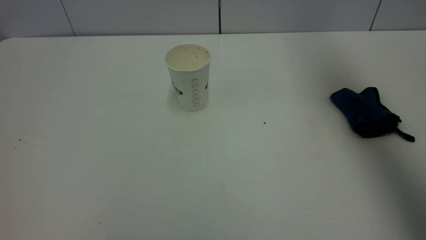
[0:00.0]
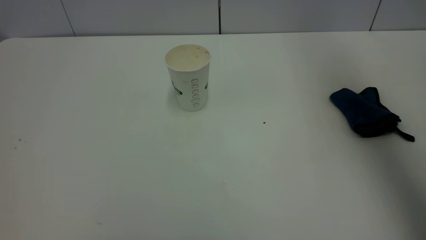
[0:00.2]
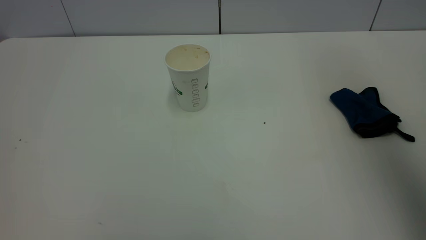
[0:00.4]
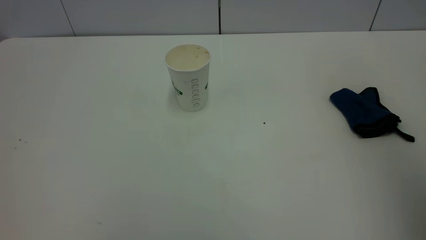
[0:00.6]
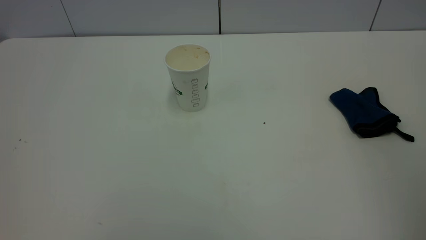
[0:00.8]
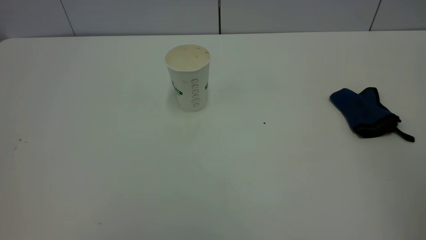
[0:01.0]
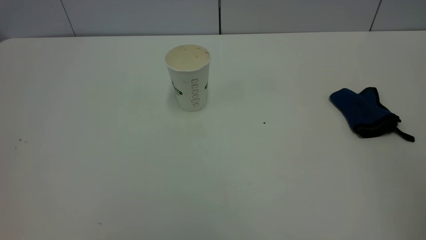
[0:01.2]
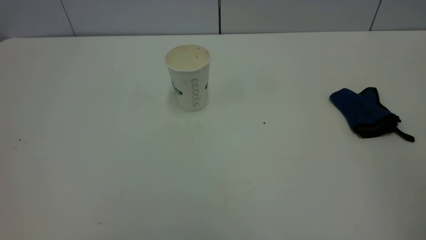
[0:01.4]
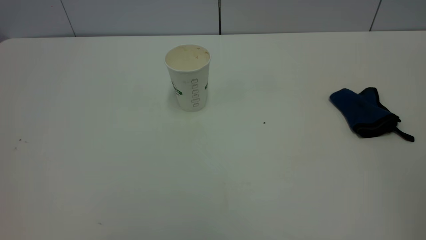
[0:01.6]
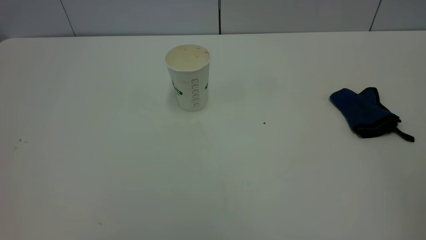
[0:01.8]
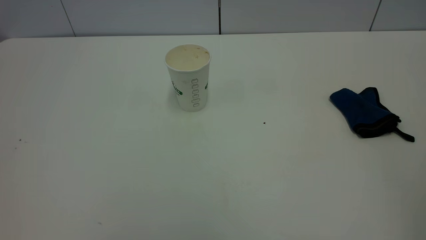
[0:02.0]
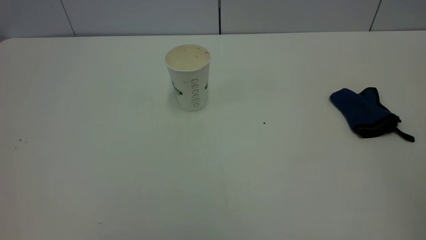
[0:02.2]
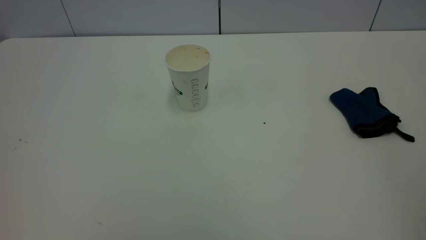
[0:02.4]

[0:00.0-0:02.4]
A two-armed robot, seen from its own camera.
Task of the whole recording: the left gripper pick up the fallen cup and place it upright, the right gripper grasp the blue rag and wipe the tea stain on the table, the right gripper put the blue rag back in its original position.
0:00.0 to 0:01.2: The right gripper heads backward, covering about 35 cm.
